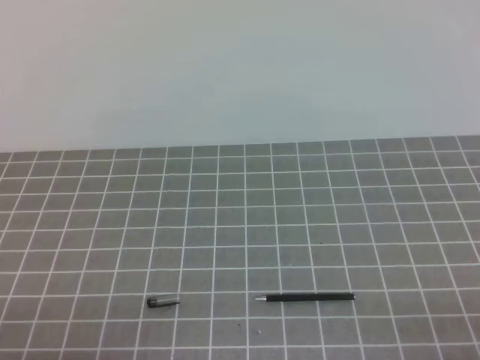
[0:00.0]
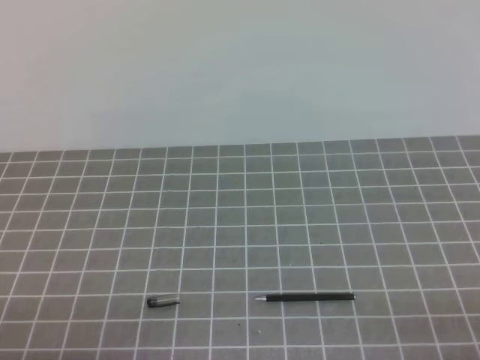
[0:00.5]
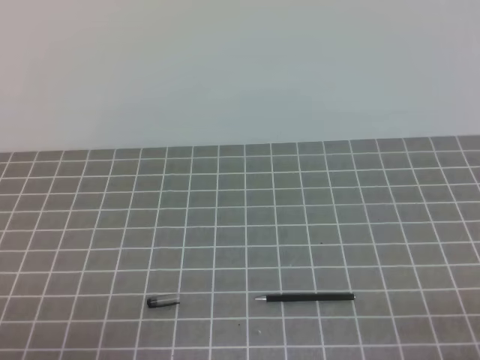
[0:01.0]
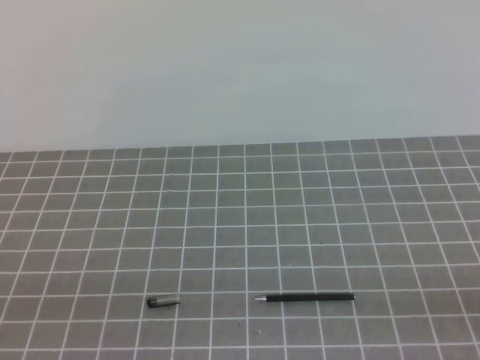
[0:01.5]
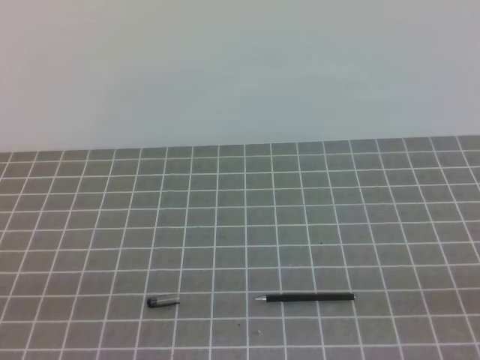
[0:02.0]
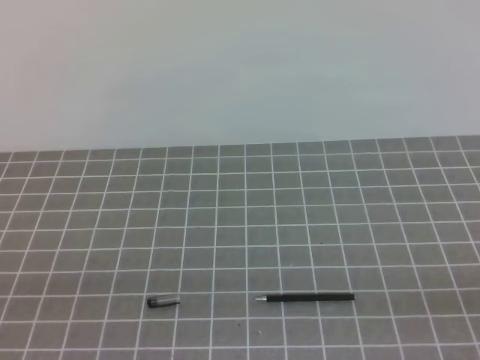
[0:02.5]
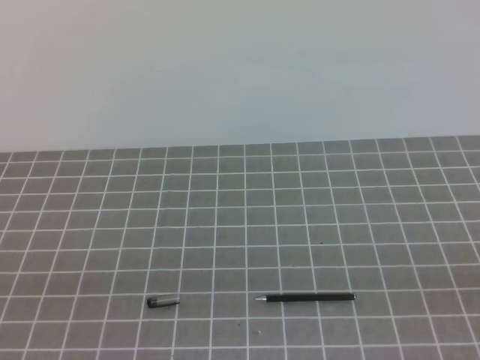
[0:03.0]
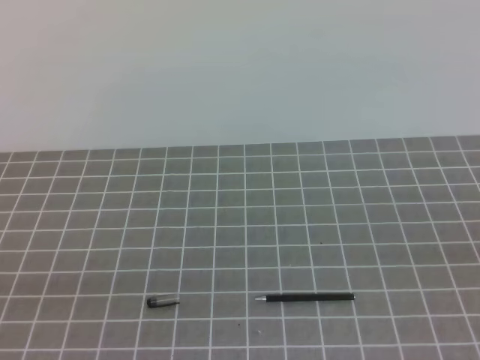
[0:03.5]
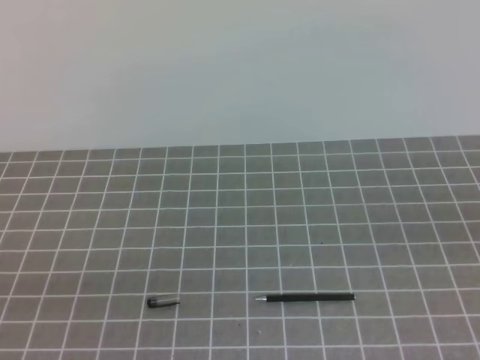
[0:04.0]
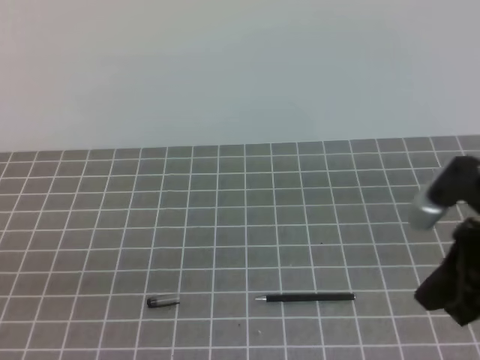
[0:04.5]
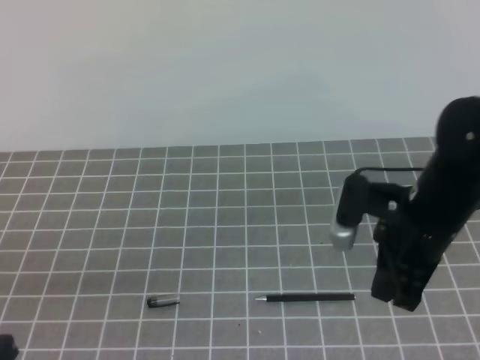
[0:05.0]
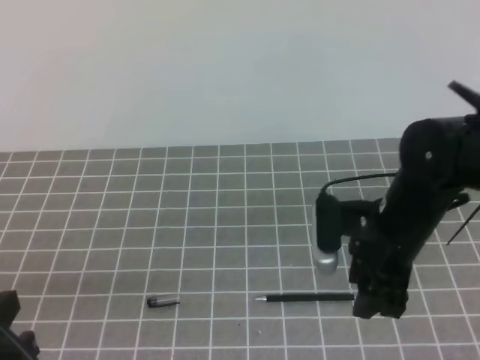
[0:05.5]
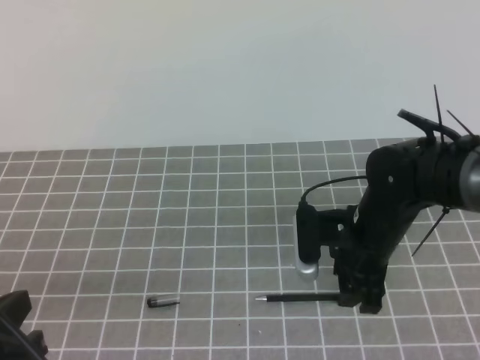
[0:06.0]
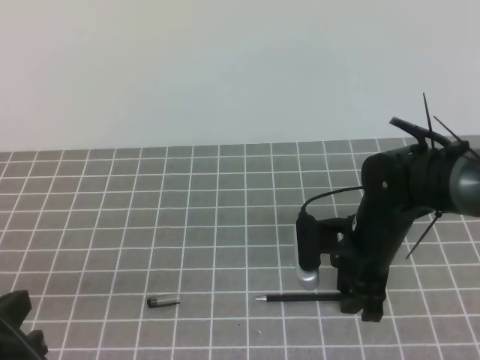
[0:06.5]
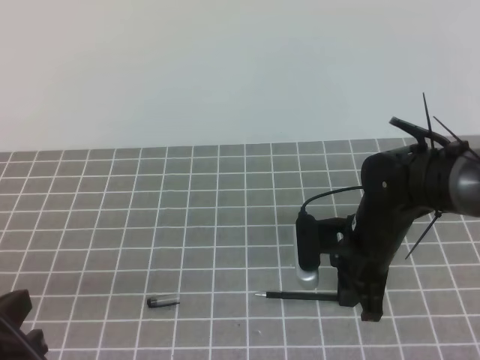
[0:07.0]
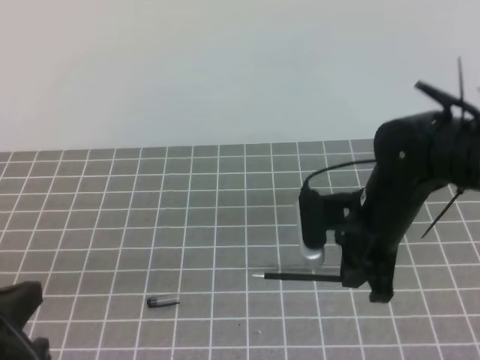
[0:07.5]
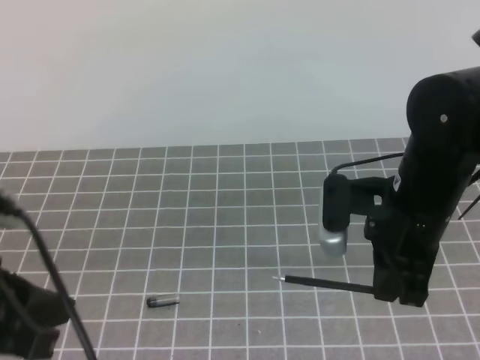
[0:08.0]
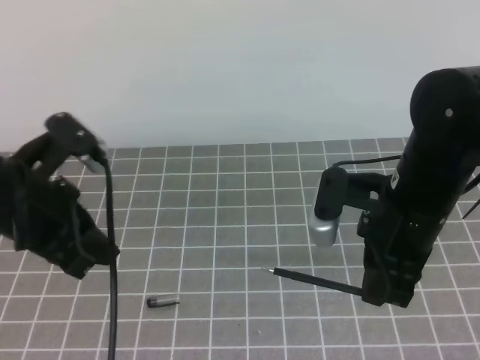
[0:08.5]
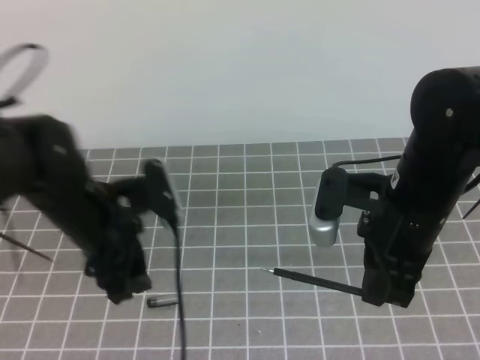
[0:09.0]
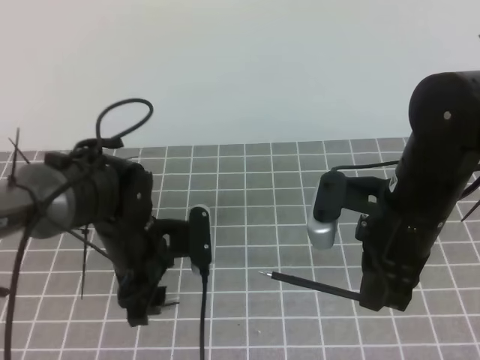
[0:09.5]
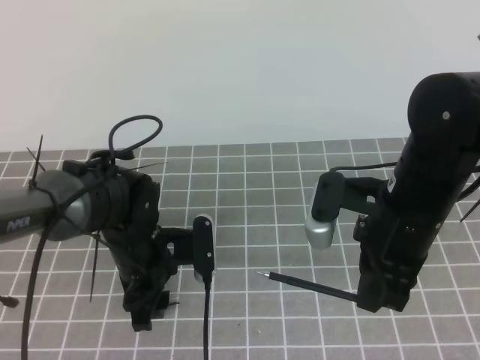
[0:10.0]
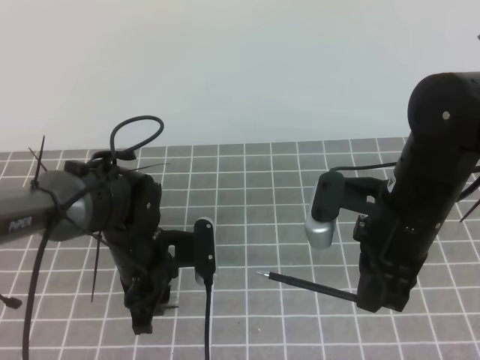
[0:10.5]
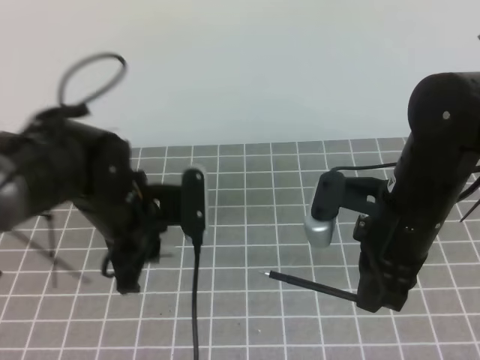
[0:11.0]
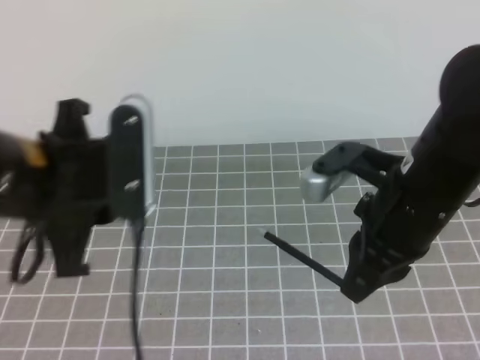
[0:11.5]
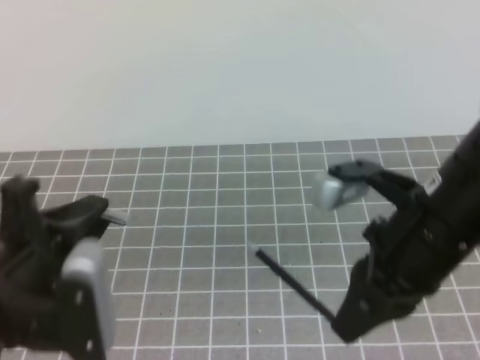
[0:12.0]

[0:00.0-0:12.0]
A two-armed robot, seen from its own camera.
Task of the whole recording: on the grey tablecloth, hold the pen cap in one hand and the pen in the other, then cover the pen cap.
0:04.0 to 0:06.0: The right gripper heads forward, to the left and downward, covering some 30 cm, and opens its fingers; the left gripper is displaced forward by some 5 cm.
0:06.0 to 0:08.0: The grippers both shift upward by some 10 cm. The right gripper closes.
0:08.0 to 0:10.0: The left gripper heads forward, downward and to the right, covering about 25 cm, and opens.
0:10.0 to 0:12.0: The right gripper goes roughly 5 cm backward. Meanwhile the left gripper travels backward, upward and to the left by some 20 cm, and closes its fingers.

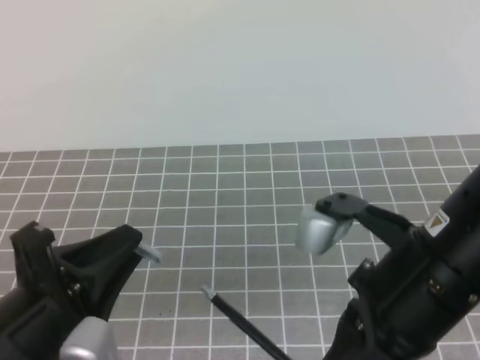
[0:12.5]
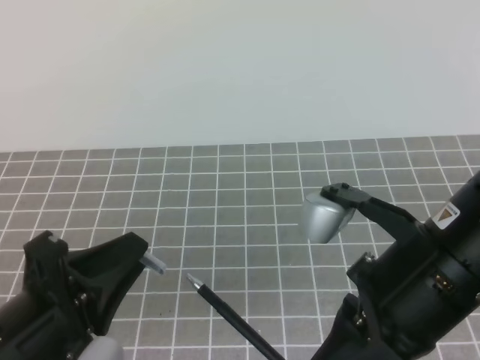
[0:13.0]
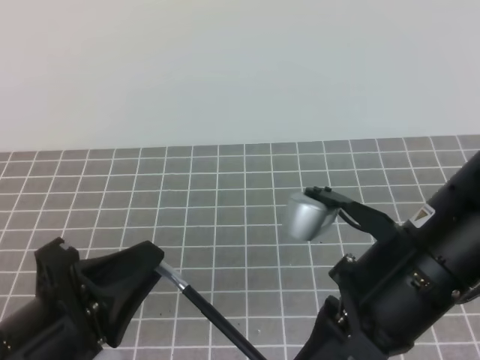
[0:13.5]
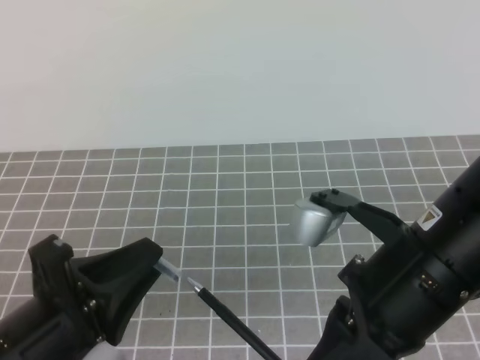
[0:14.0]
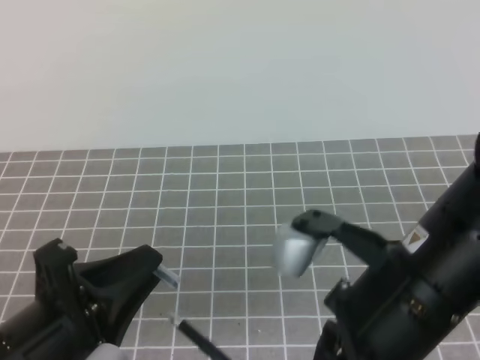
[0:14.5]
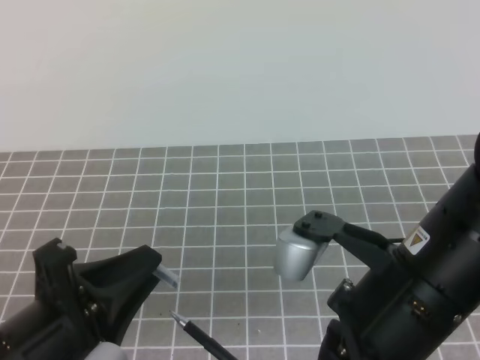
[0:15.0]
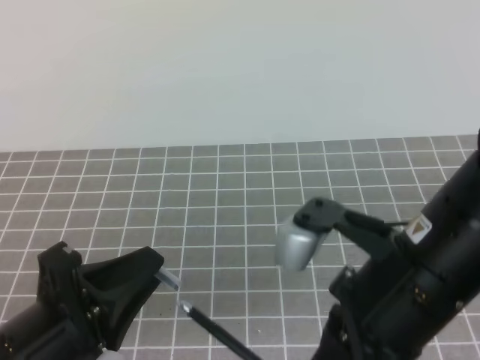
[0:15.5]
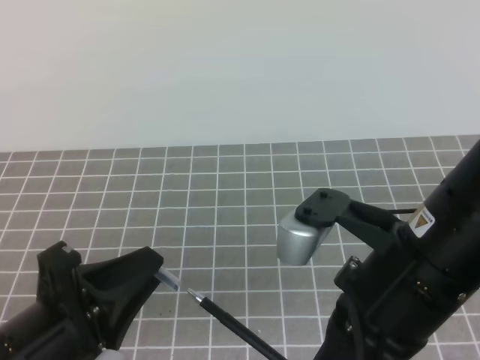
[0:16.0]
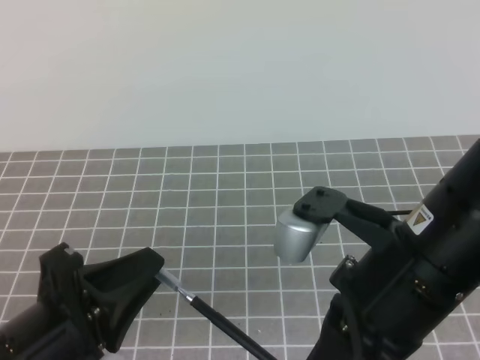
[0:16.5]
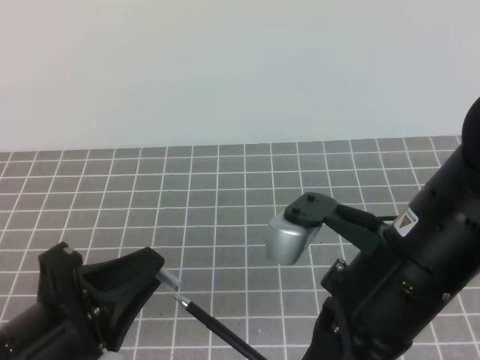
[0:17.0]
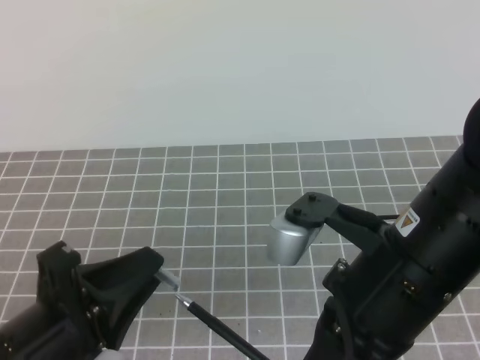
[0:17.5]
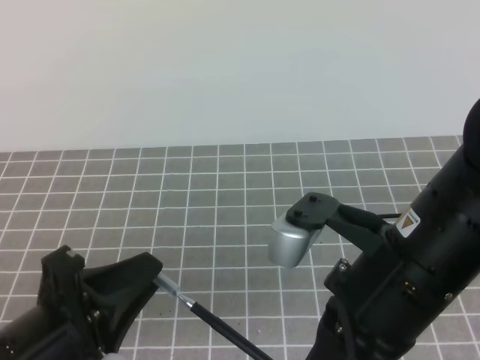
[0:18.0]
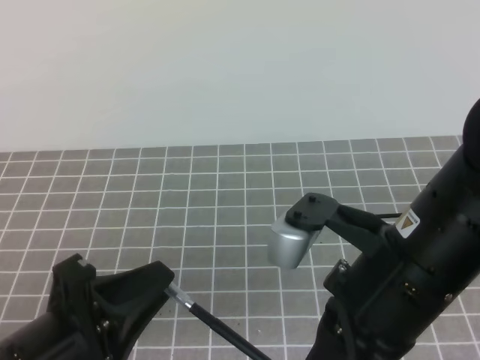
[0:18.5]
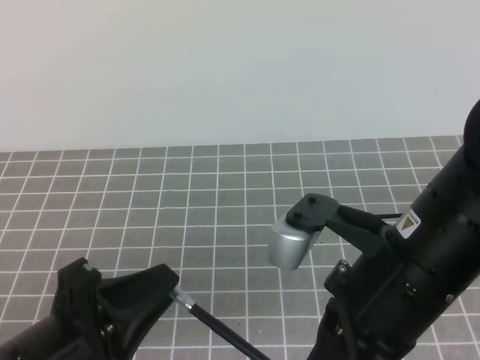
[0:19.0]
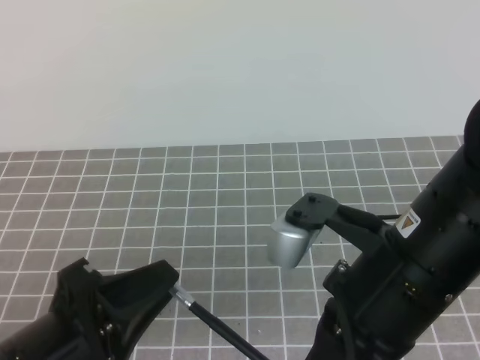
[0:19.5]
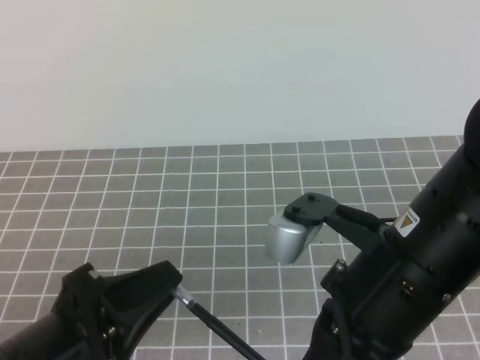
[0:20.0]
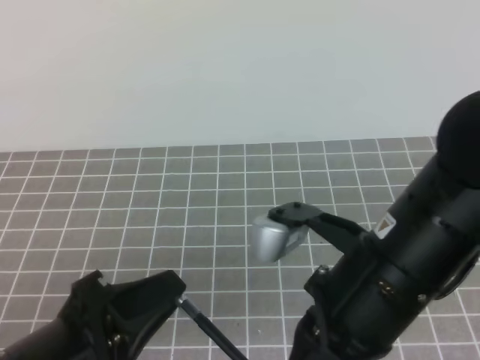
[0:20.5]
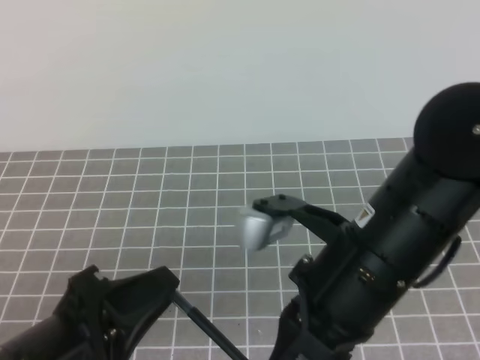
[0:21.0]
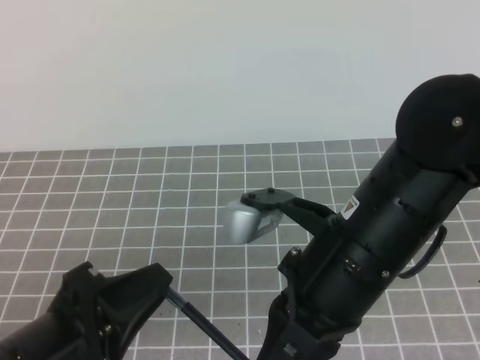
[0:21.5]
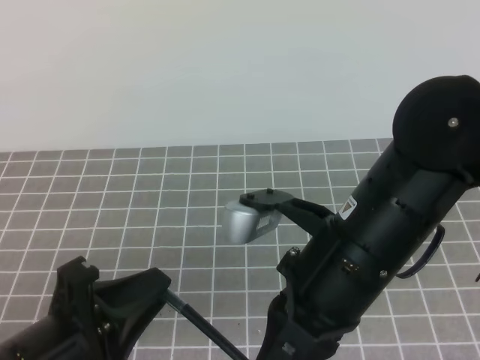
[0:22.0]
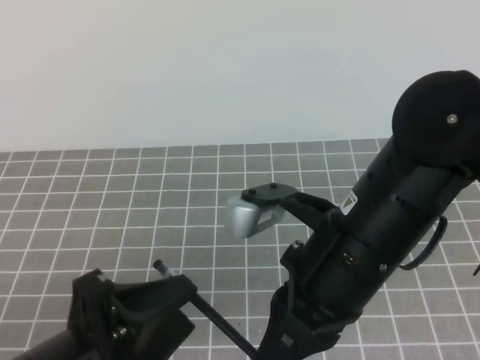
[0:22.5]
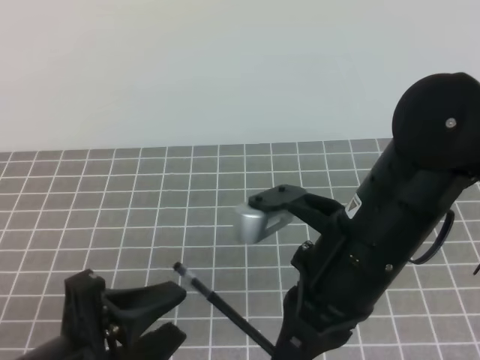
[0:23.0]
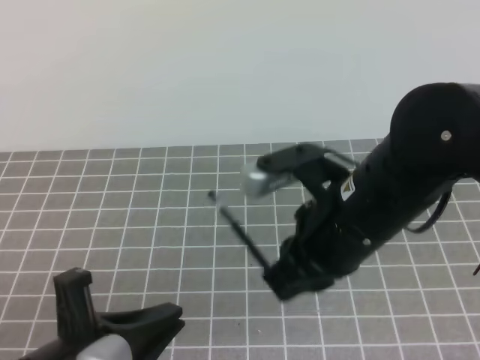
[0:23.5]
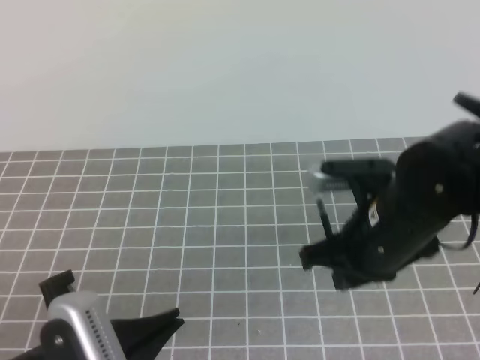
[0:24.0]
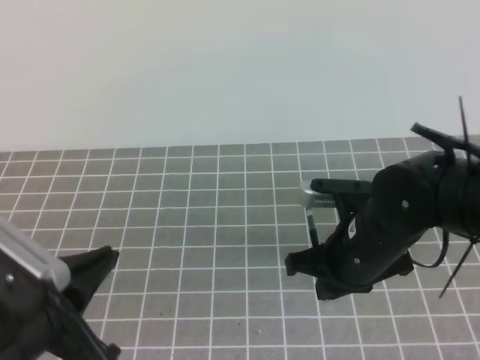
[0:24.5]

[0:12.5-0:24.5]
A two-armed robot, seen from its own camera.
Task of the whole recording: on the grey tablecloth, hold the pen cap in one hand and the pen in the other, then cover the pen cap.
0:12.5 to 0:16.5: The grippers make only small movements.
0:16.5 to 0:18.5: The two grippers keep their place.
0:18.5 to 0:20.5: The grippers make only small movements.
0:20.5 to 0:22.5: The left gripper opens its fingers.
0:22.5 to 0:24.5: The left gripper closes, while the right gripper goes some 15 cm downward and forward.

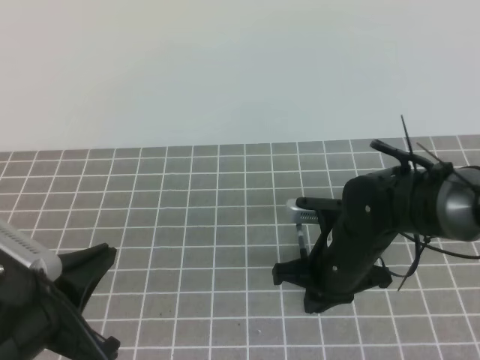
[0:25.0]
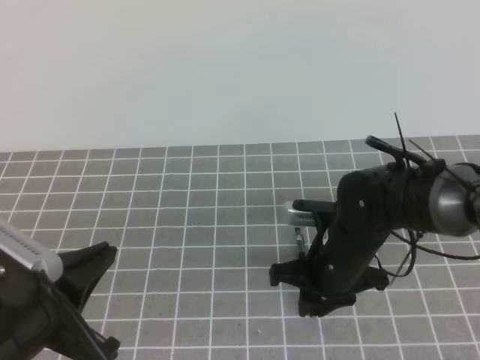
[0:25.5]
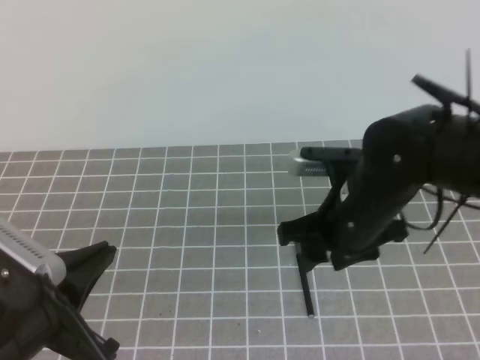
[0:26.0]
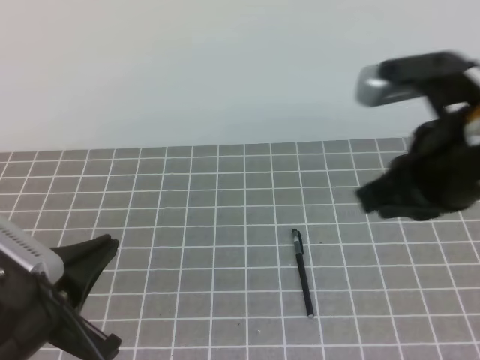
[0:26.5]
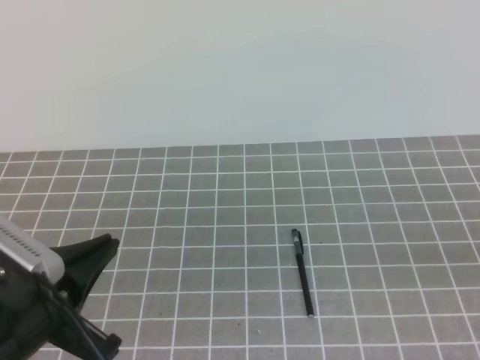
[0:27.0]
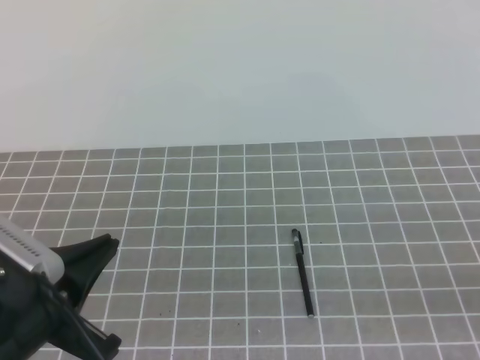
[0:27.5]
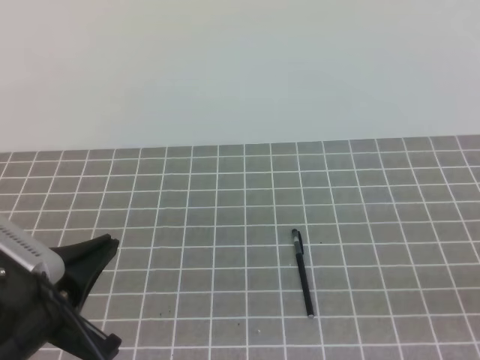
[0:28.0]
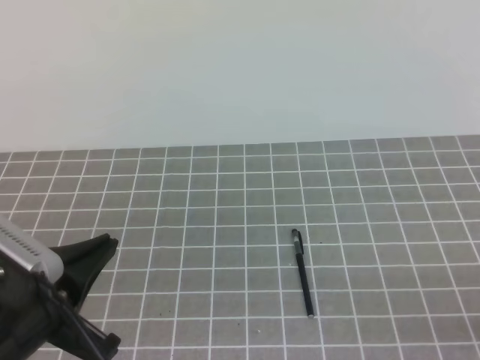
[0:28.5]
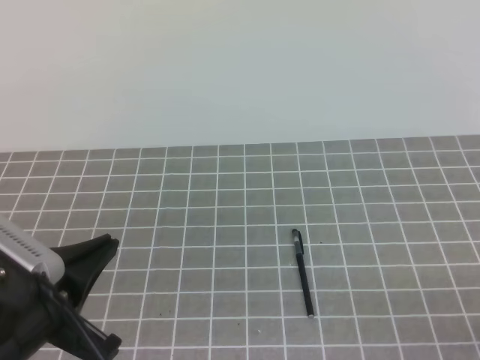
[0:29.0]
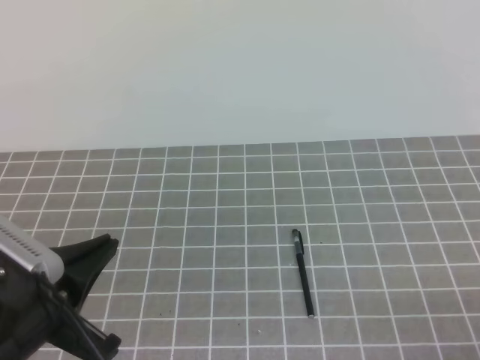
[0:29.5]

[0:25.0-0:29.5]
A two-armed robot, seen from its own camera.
Task of the whole recording: on the grey tablecloth, hold the pen cap in one hand and the pen in the other, then cover the pen cap.
0:25.0 to 0:27.0: The right gripper heads backward, upward and to the right, covering some 25 cm, and opens and closes again.
